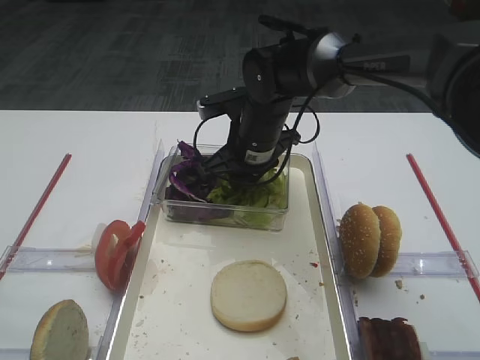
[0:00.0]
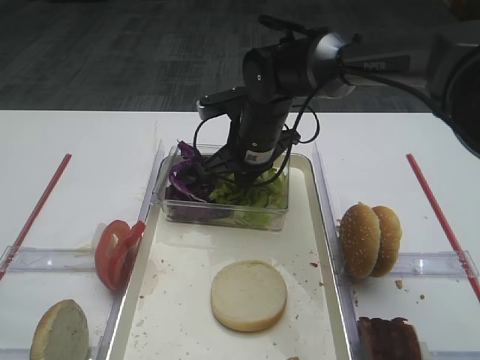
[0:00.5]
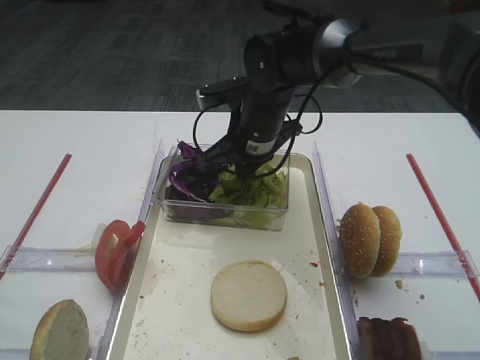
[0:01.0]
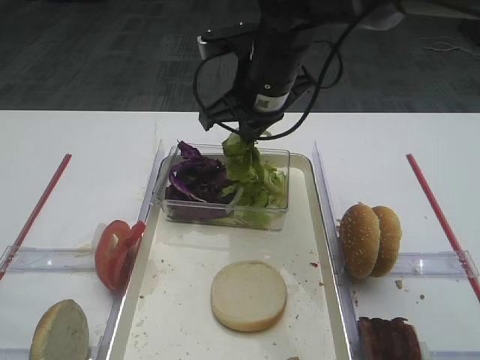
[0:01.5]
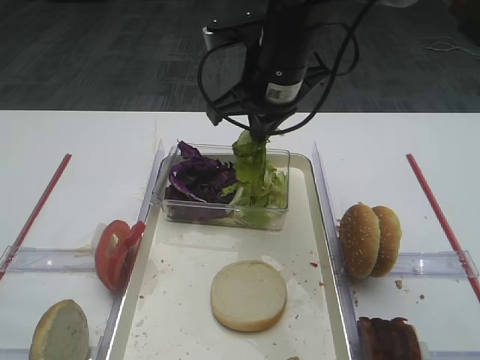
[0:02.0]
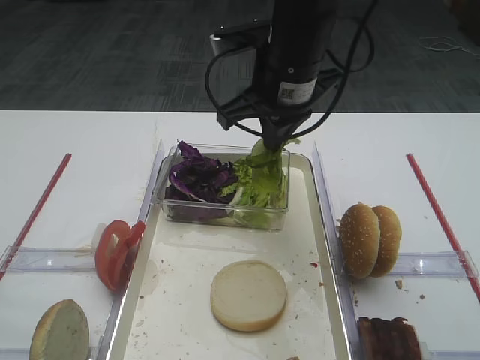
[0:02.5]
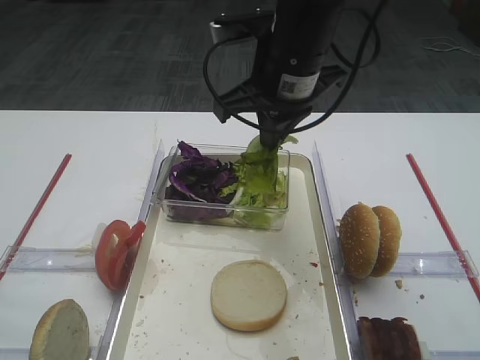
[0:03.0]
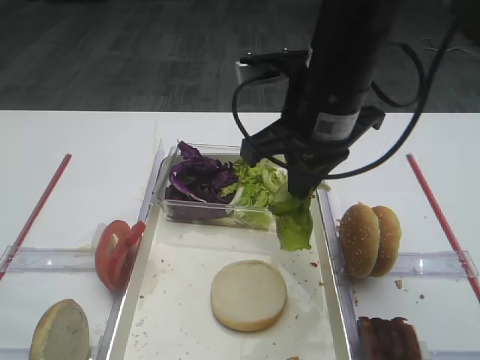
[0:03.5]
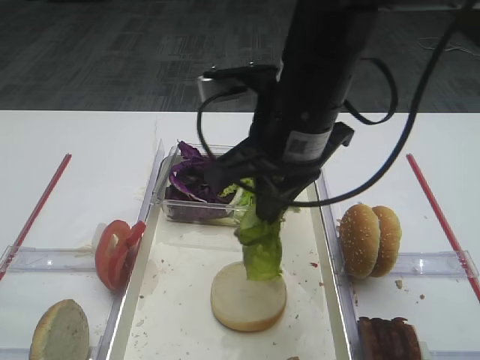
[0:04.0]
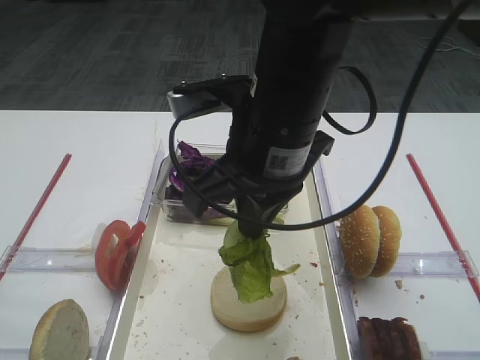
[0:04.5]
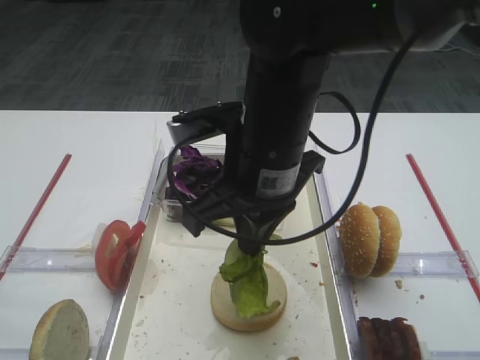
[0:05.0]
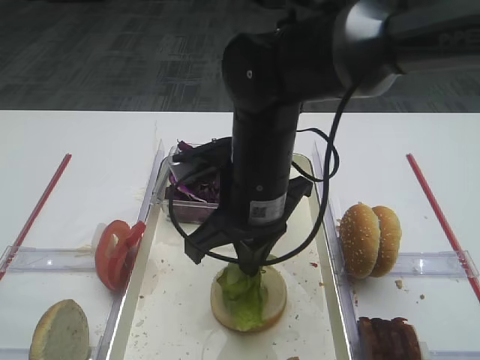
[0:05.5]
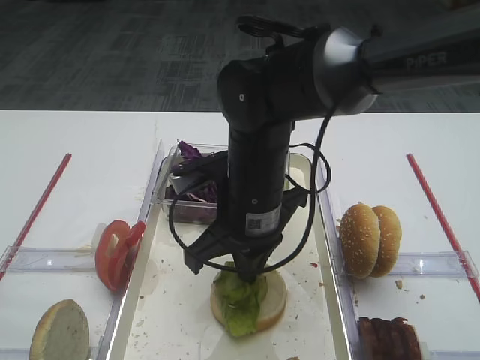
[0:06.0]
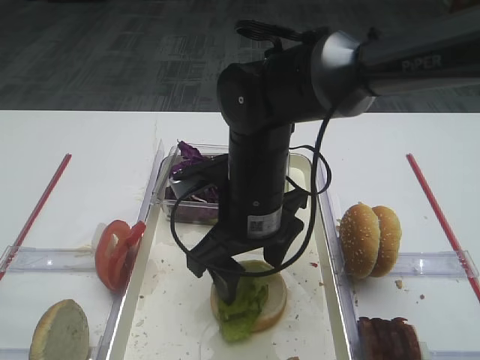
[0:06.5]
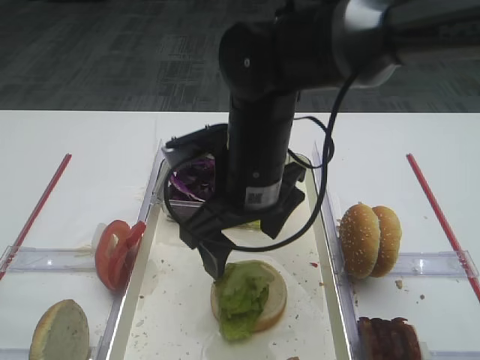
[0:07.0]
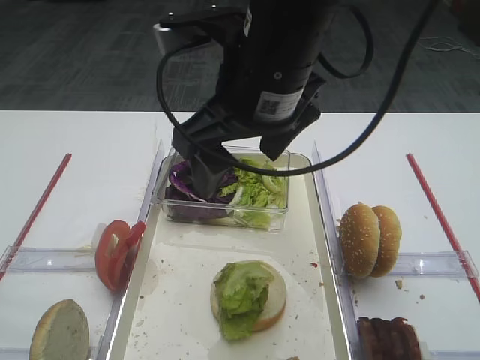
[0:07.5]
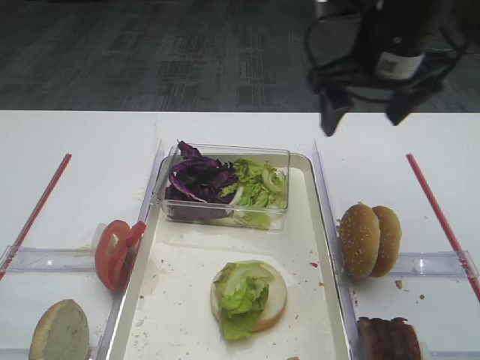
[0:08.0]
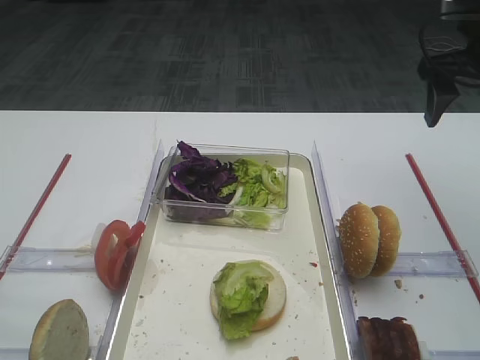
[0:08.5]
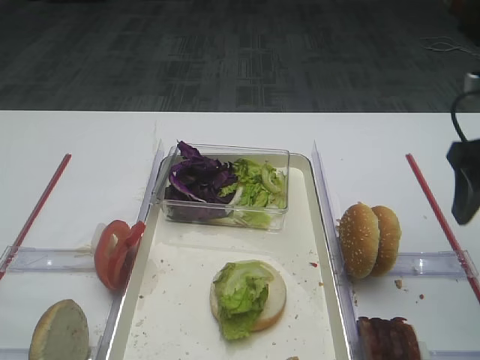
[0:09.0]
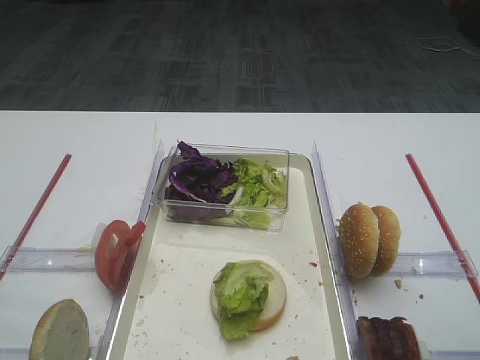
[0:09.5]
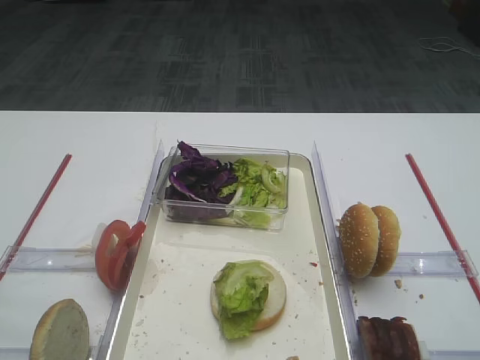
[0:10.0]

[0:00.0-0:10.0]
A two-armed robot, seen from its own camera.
Step, 0:02.0 to 0:06.5: Place the lettuce leaf on the bread slice with the right gripper.
0:00.0 to 0:02.0: The right gripper heads upward, covering approximately 10 cm, and closes.
0:02.0 to 0:04.0: The right gripper is displaced backward by approximately 10 cm.
0:04.0 to 0:06.0: The right gripper shifts roughly 10 cm downward.
0:06.0 to 0:08.0: The right gripper travels to the right, upward and forward by some 20 cm, and opens up.
0:08.0 to 0:10.0: The right gripper heads backward, covering roughly 30 cm.

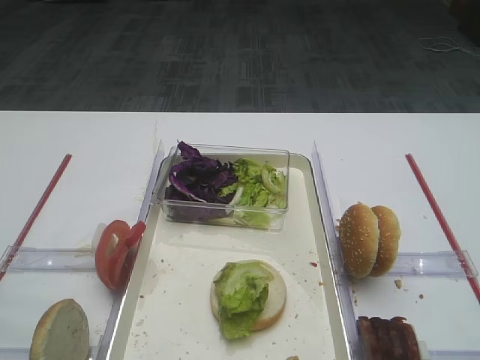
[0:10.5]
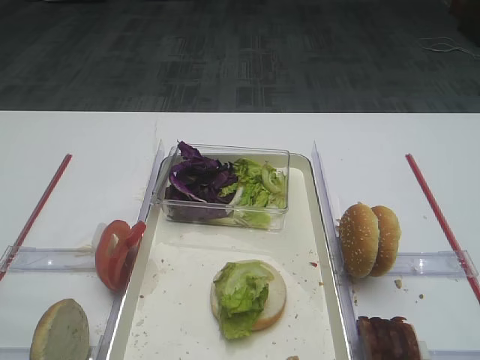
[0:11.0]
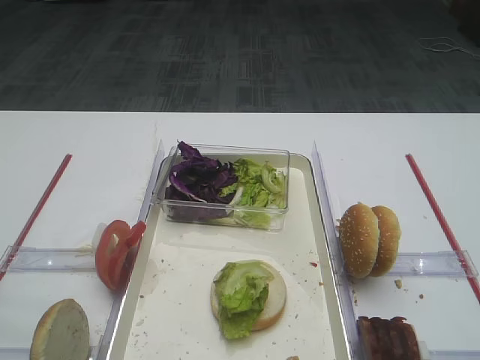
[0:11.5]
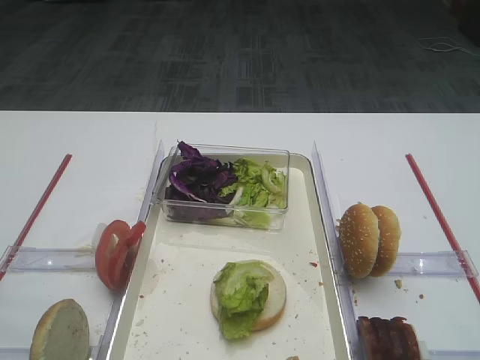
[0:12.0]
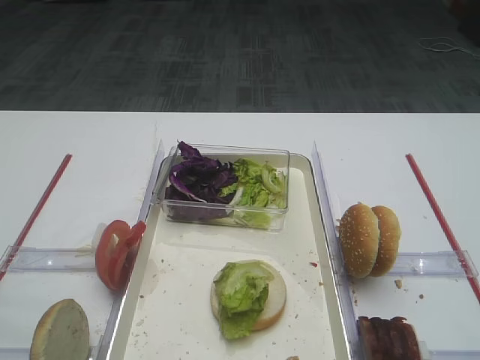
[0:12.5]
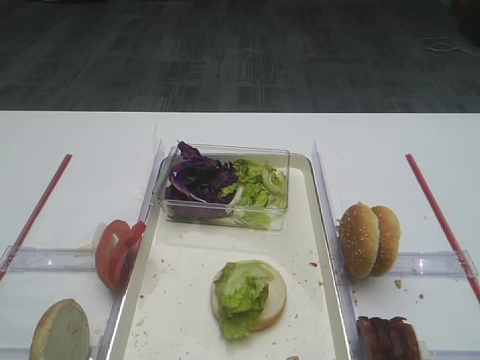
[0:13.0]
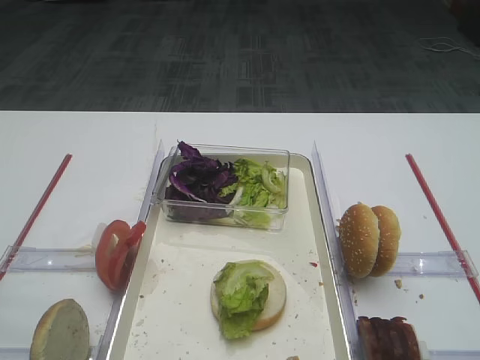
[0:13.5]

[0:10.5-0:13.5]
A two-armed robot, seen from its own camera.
0:10.5 to 0:13.5: The two grippers keep their place.
